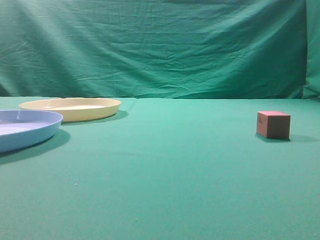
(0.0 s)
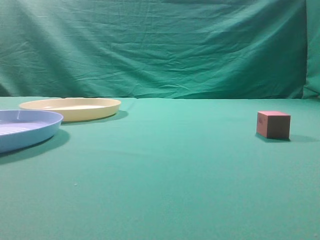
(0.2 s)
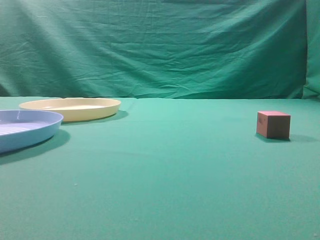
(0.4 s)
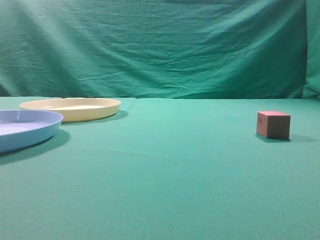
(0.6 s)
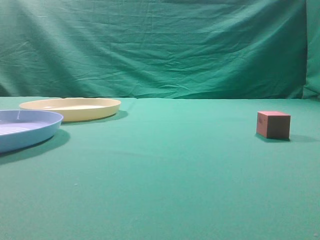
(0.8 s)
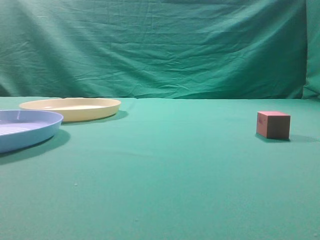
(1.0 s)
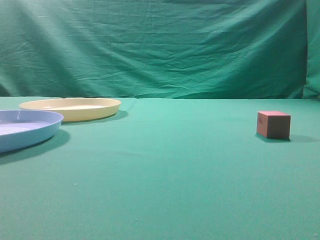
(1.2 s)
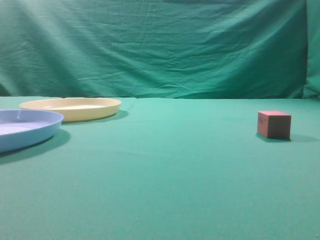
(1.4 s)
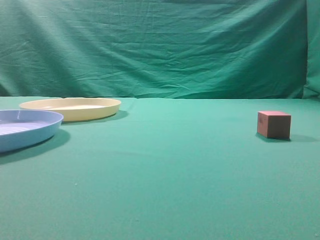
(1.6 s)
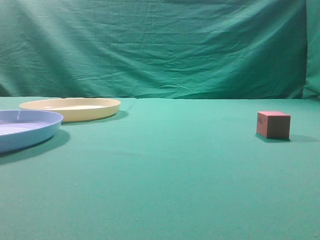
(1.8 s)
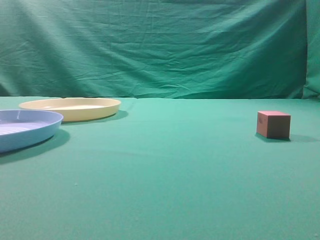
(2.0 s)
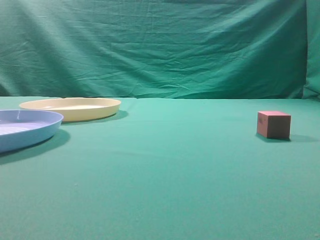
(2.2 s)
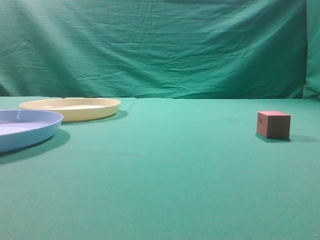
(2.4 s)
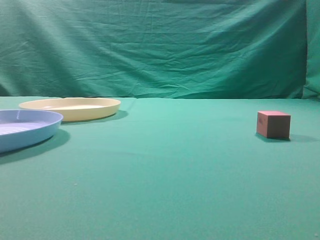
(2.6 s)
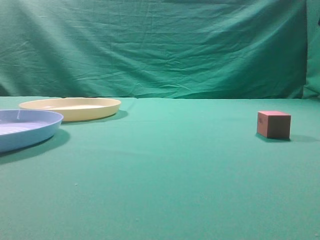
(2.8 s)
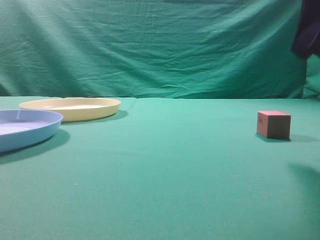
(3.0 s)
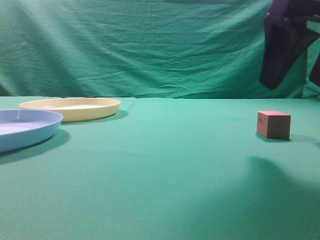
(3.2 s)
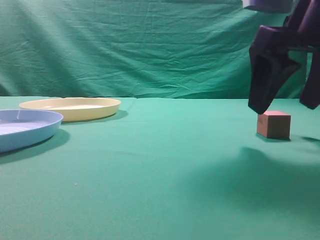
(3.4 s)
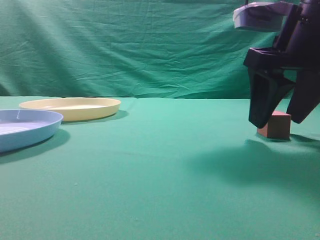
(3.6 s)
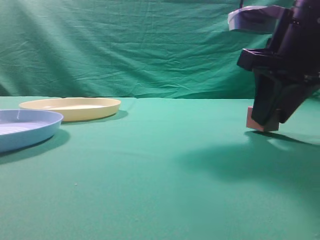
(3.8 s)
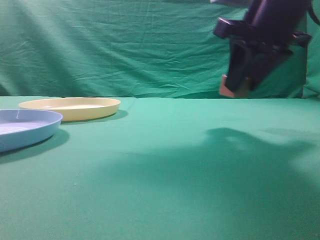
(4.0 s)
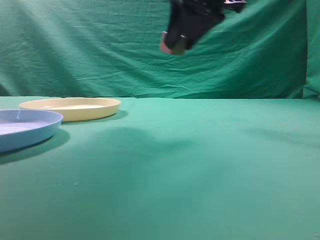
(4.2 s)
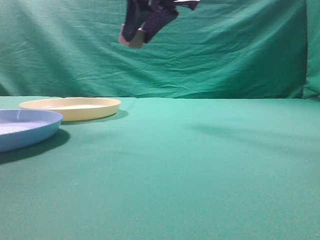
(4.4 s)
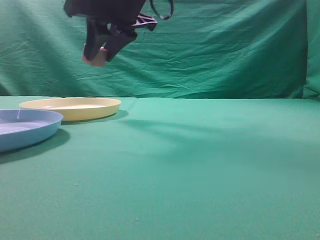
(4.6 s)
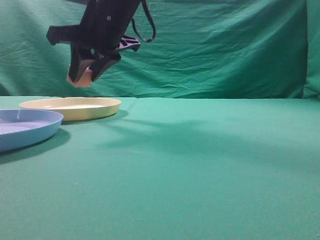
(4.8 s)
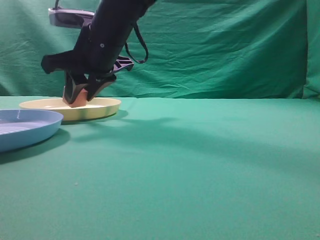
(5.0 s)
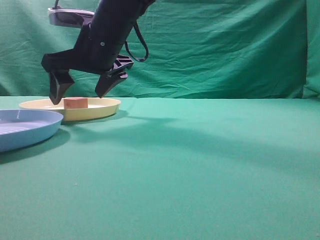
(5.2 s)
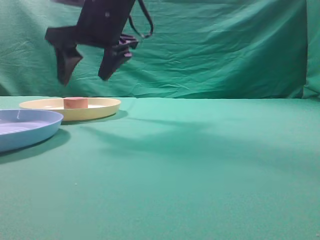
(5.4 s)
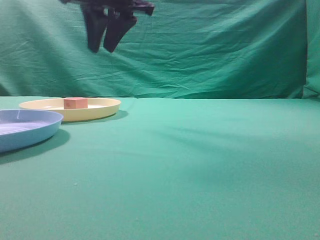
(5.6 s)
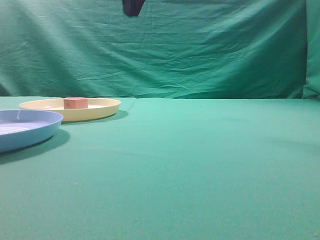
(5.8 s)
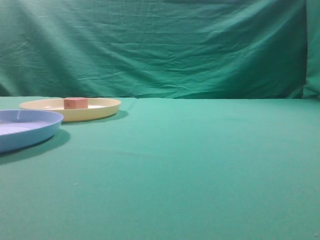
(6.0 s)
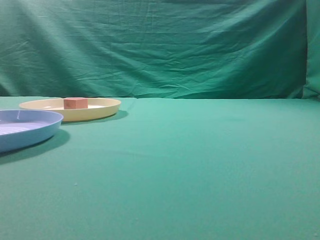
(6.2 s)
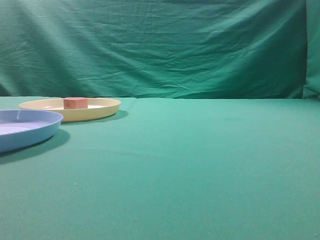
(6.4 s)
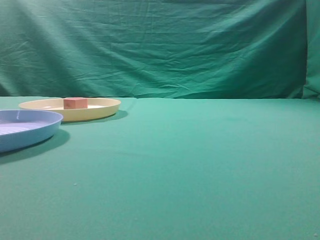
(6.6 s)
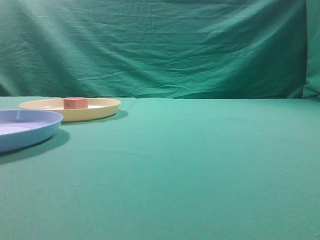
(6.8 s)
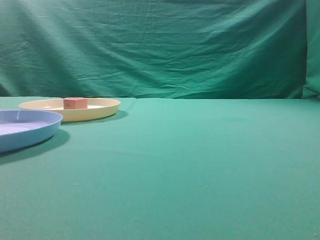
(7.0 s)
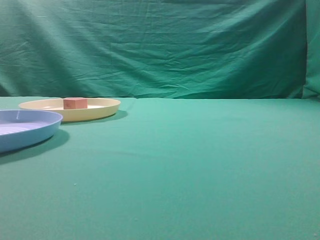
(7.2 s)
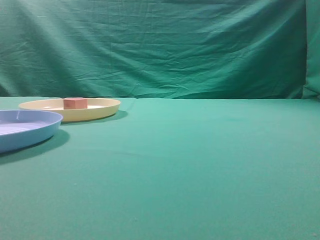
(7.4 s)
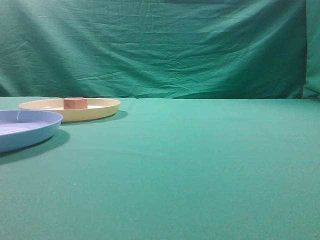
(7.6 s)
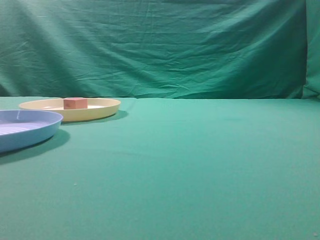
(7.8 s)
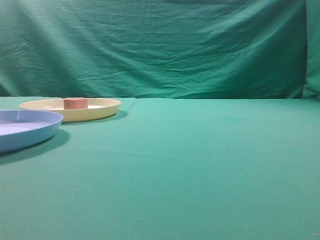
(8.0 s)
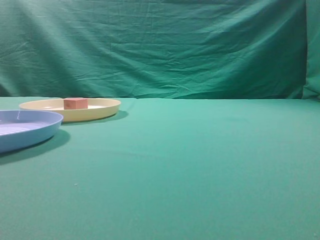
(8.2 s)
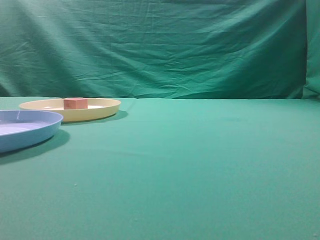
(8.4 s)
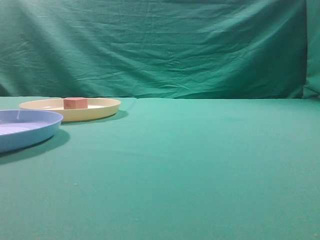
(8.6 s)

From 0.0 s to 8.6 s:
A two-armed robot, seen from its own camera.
Task of the whole recording: pick up the cube block from the table and put it on the plate.
Step, from 0.0 s to 4.0 s: Grasp the small cube on the table.
Step, from 4.2 s to 5.4 s: Place it into the yellow plate.
From 2.8 s to 4.4 s: The right gripper heads to the left and forward, covering roughly 25 cm, and opens.
From 4.4 s to 5.8 s: The right gripper goes some 10 cm upward, and closes.
